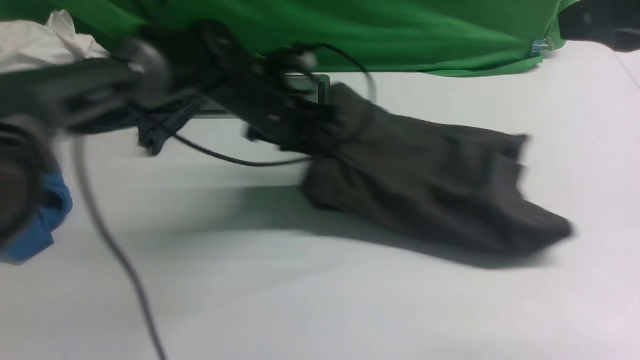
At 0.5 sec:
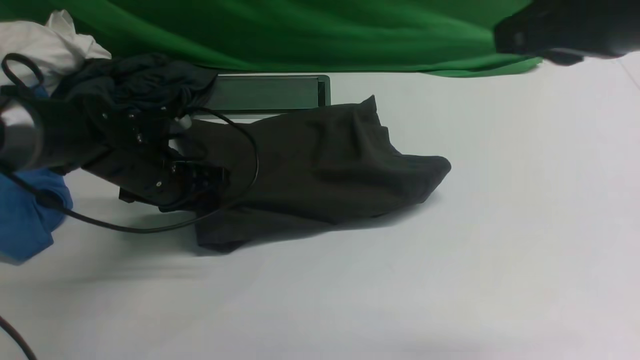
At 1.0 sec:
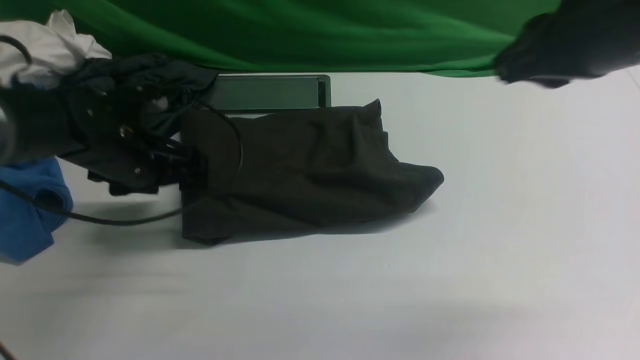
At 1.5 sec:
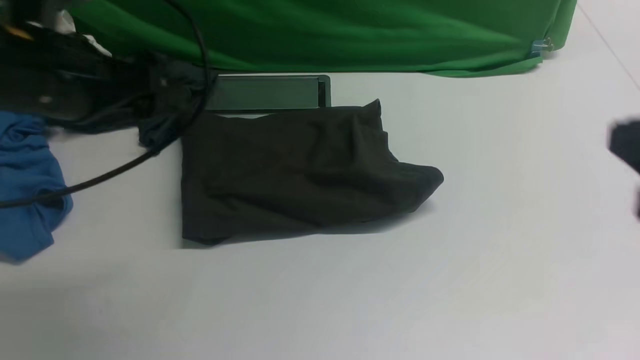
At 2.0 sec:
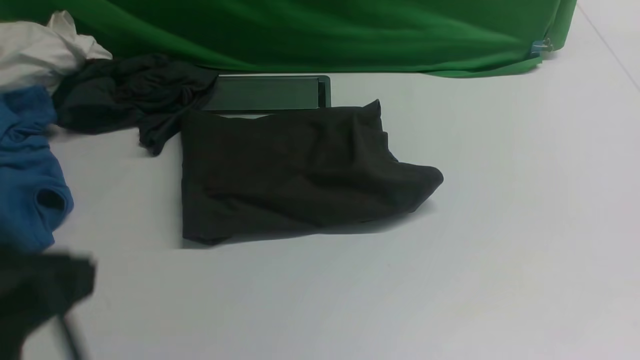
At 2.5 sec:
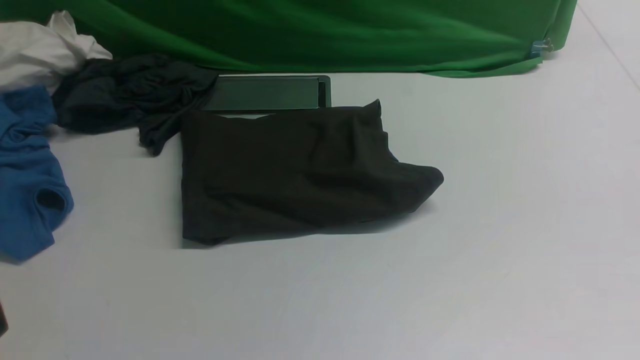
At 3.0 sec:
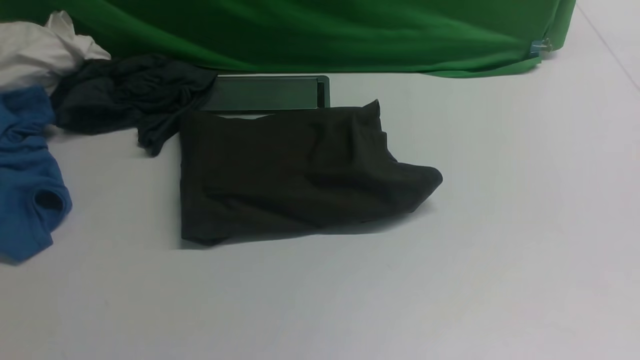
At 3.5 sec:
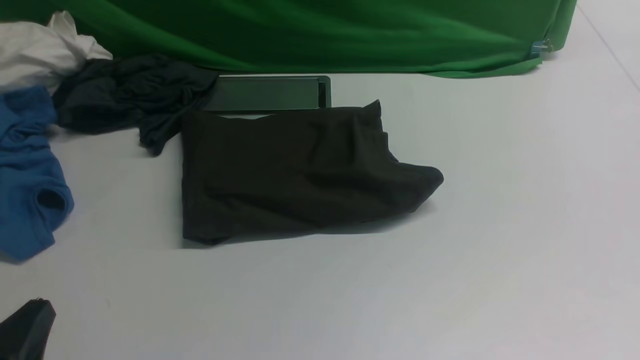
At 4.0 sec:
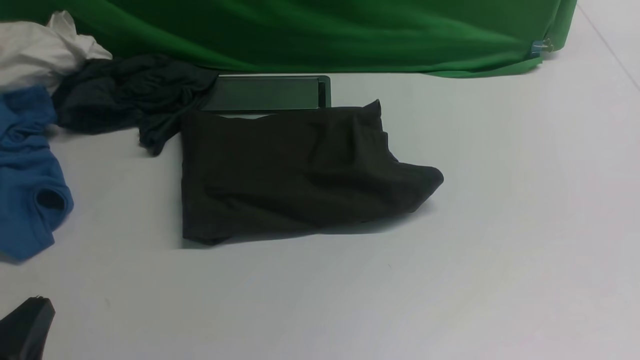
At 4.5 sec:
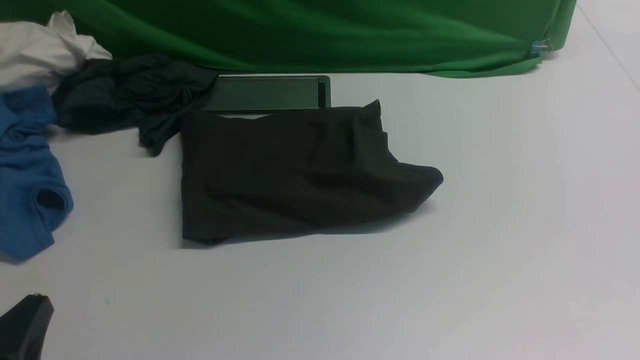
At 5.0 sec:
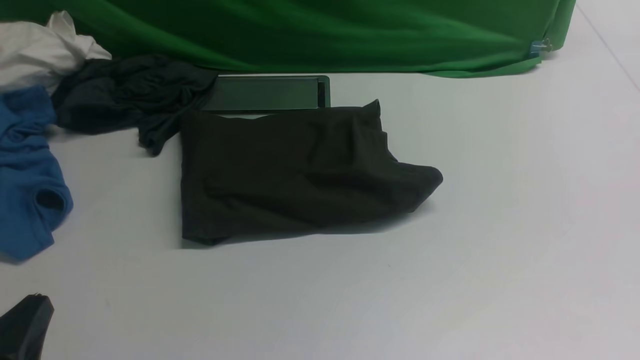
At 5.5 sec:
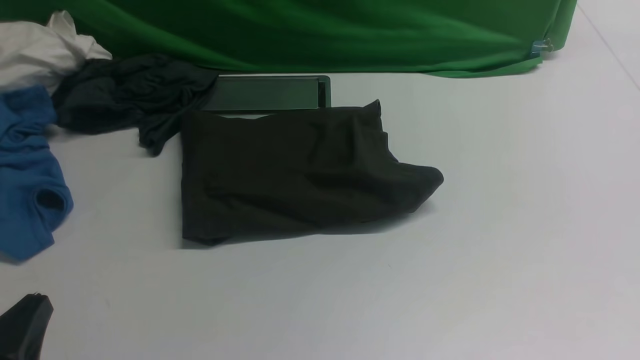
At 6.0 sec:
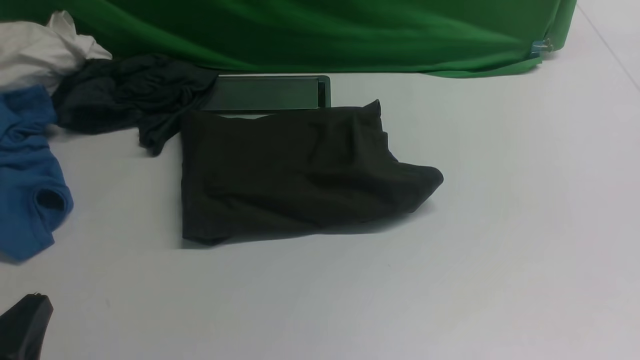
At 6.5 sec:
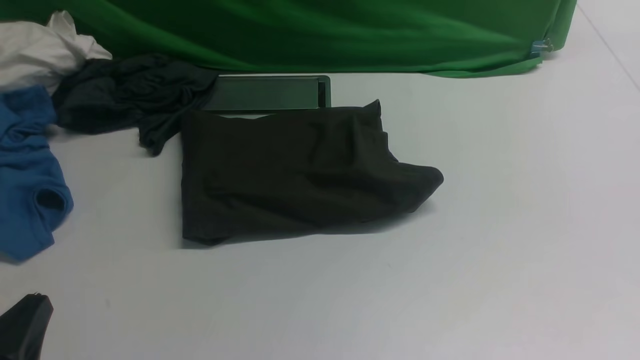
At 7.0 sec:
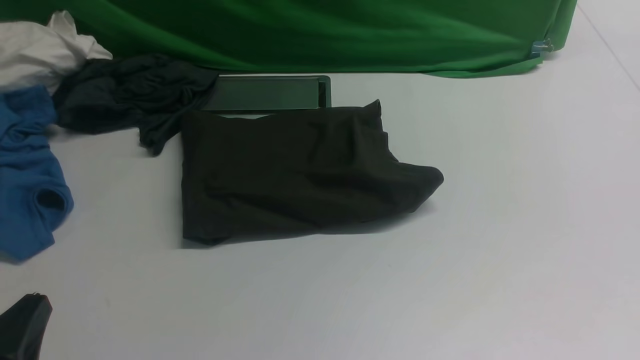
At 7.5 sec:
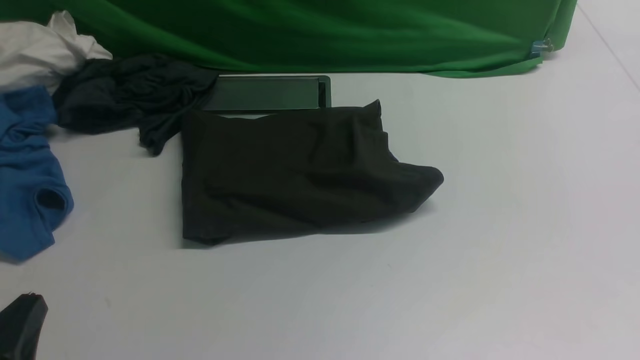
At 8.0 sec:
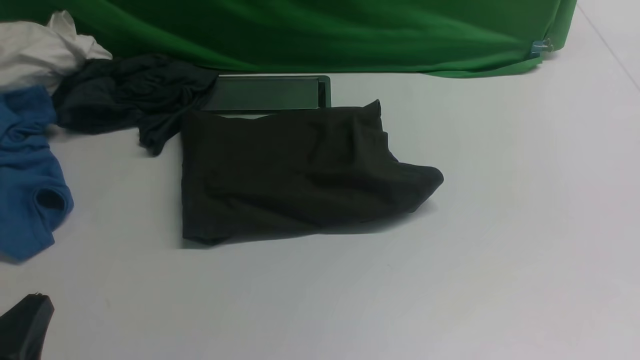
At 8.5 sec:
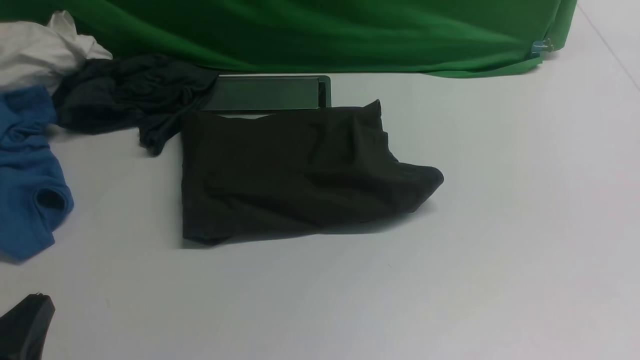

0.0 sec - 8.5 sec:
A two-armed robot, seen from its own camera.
0.0 sec - 2.0 sec: The right gripper heads backward and downward, covering approximately 25 cm. The left gripper heads backward and upward, covering roughly 40 cm, and opens, then closes again.
2.0 sec - 4.0 sec: The left gripper travels downward by about 20 cm.
6.5 sec - 8.5 sec: Both grippers stay put.
